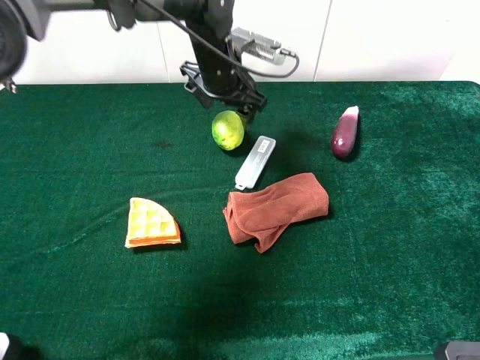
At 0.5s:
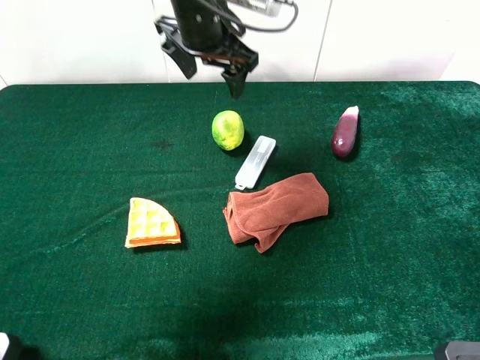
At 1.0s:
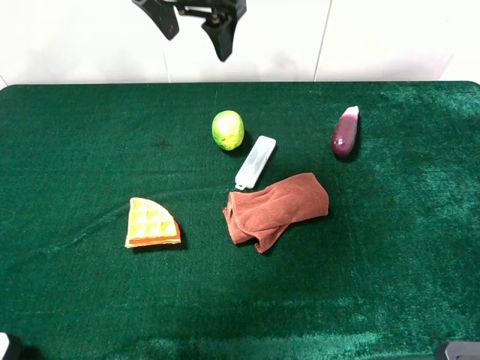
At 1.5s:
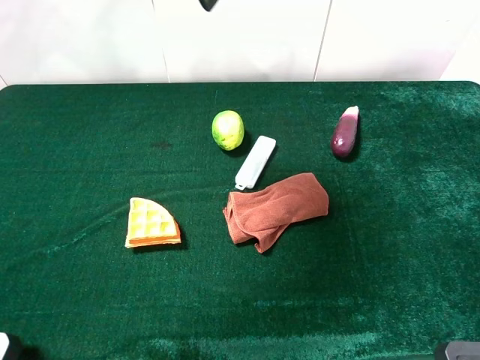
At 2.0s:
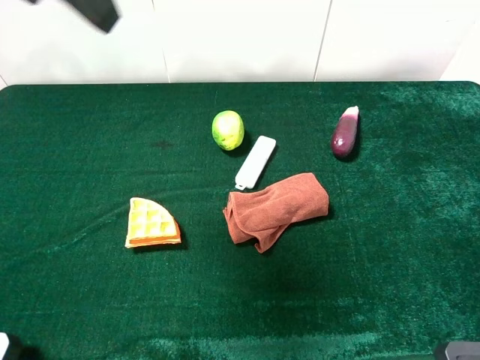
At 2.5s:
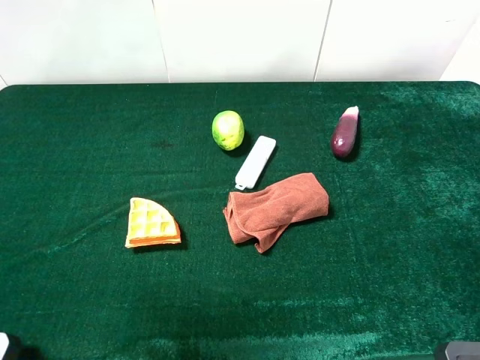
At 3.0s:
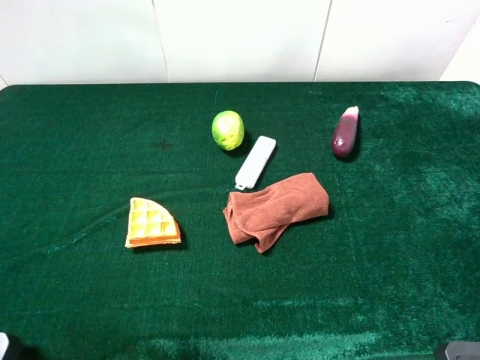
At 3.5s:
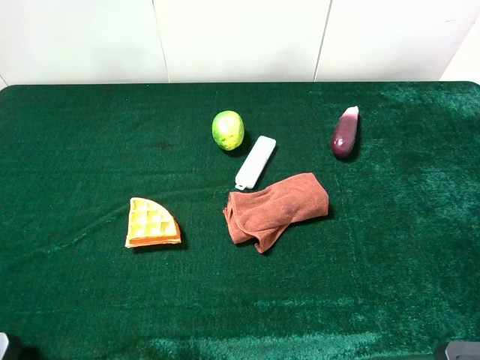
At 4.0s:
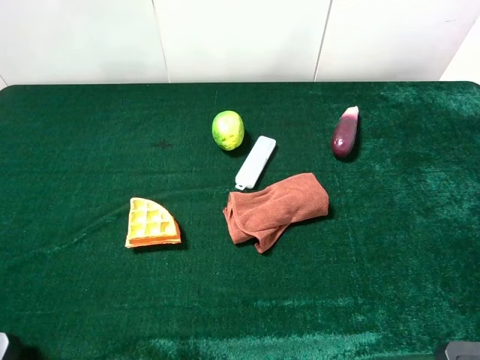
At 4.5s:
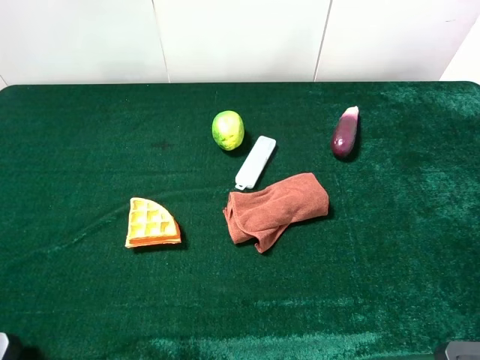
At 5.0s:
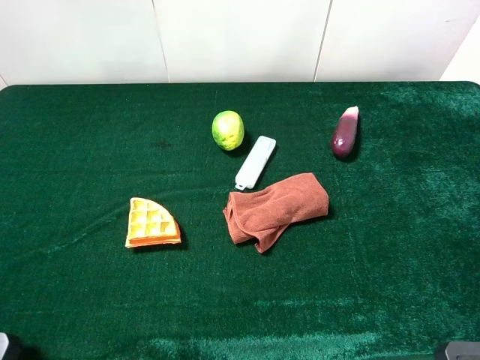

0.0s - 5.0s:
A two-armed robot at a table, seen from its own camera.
Task of the whole recording: the gripper move the object.
0.0s - 2.5s: The left gripper moves backward, upward and to the left, about 40 cm, and opens.
2.5s - 5.0s: The left gripper shifts about 20 cm downward, backward and to the left.

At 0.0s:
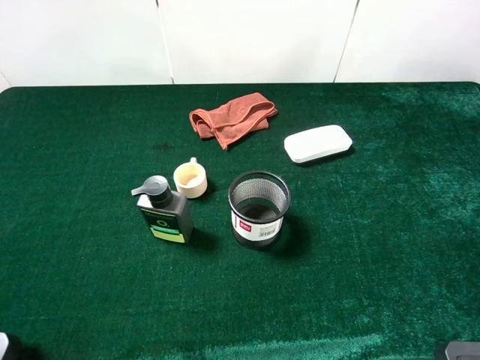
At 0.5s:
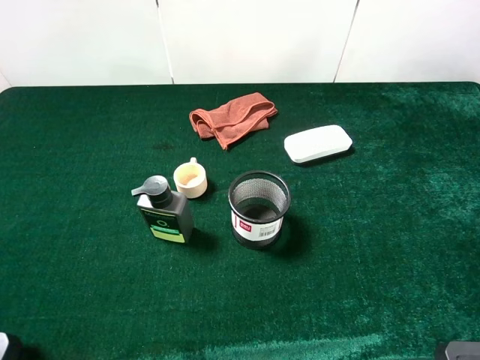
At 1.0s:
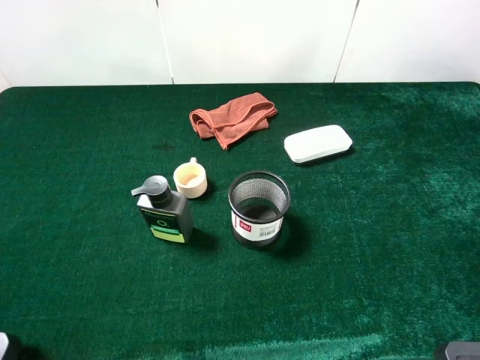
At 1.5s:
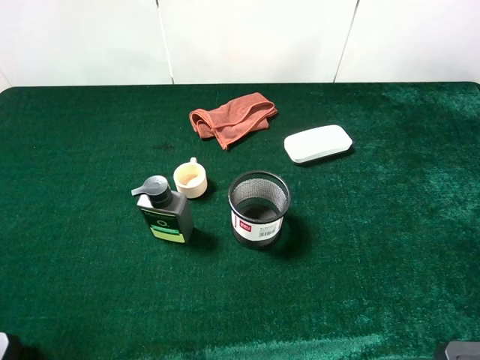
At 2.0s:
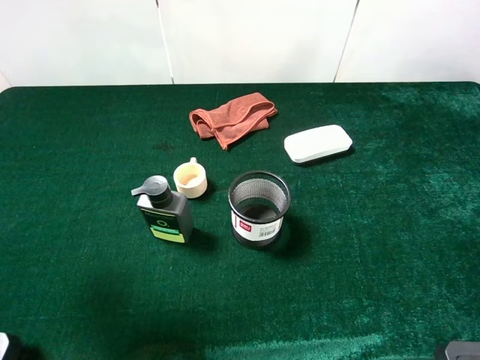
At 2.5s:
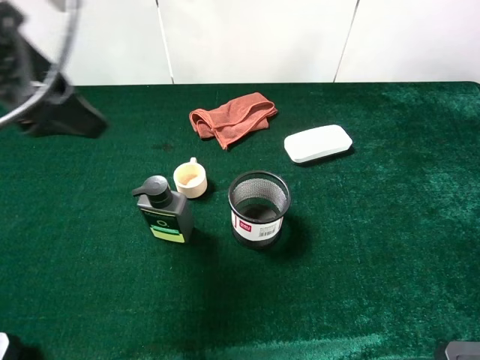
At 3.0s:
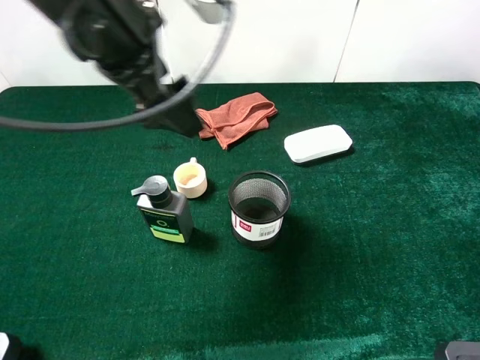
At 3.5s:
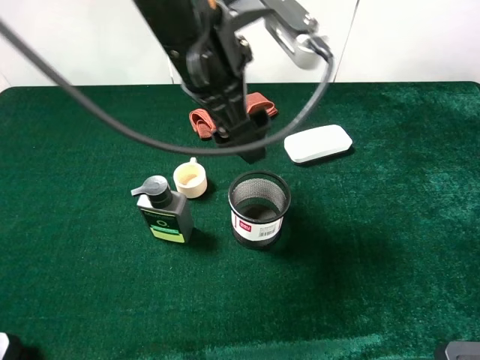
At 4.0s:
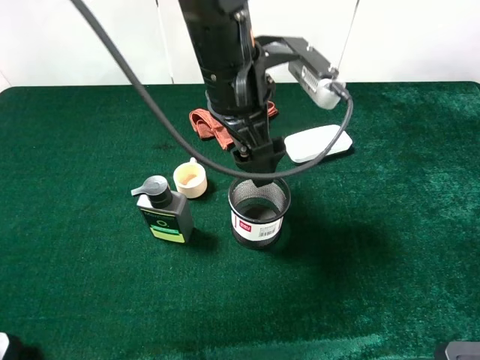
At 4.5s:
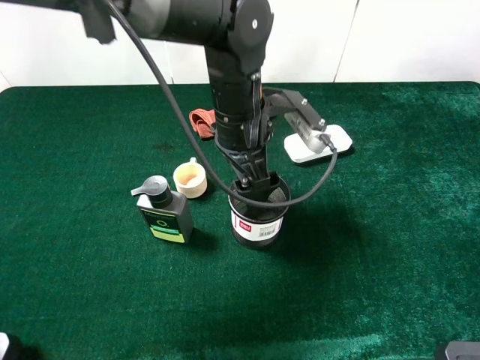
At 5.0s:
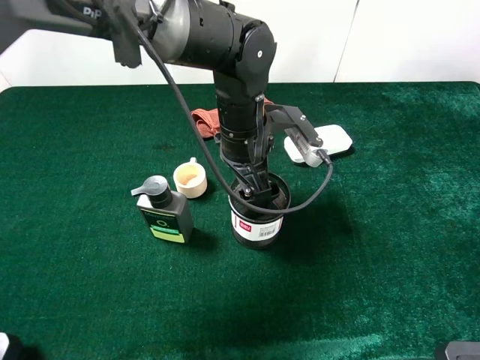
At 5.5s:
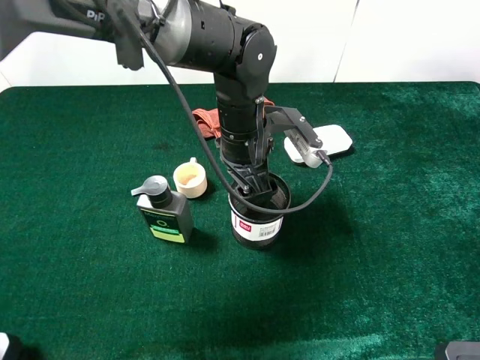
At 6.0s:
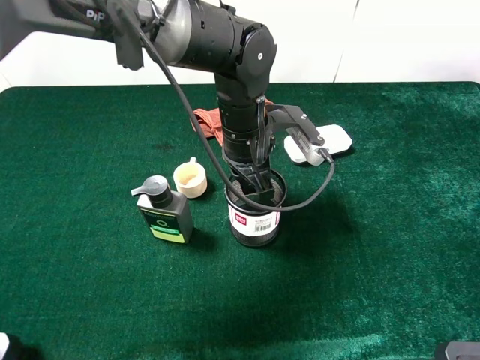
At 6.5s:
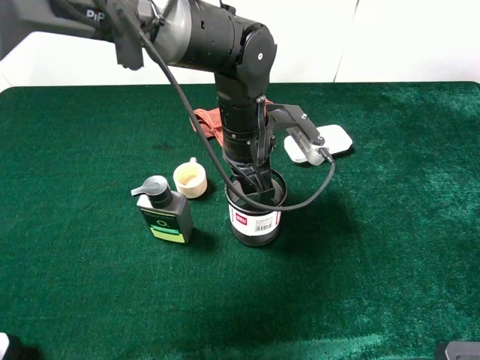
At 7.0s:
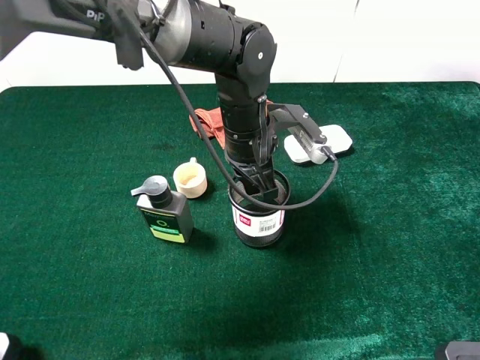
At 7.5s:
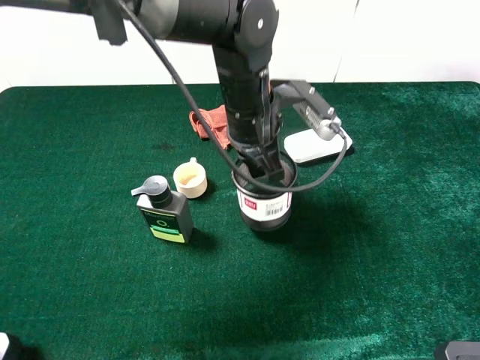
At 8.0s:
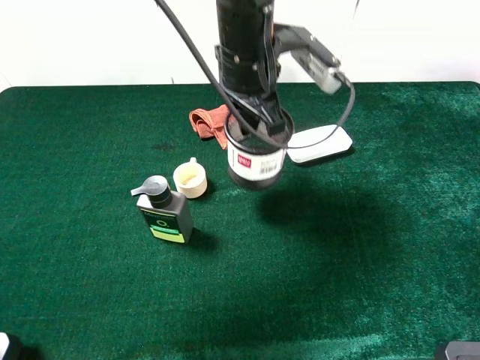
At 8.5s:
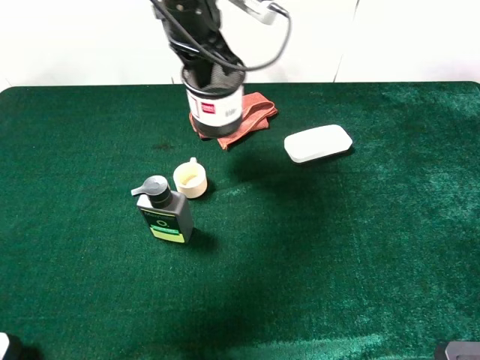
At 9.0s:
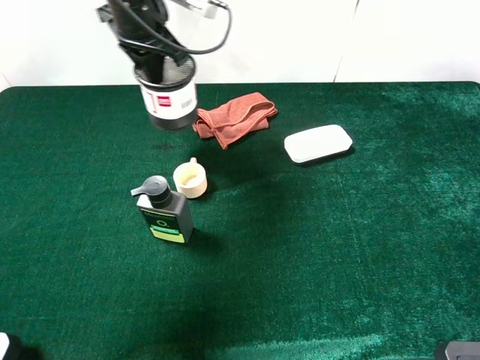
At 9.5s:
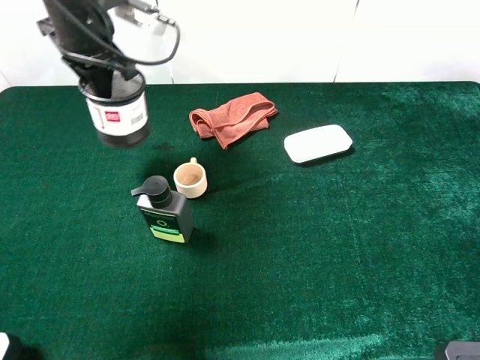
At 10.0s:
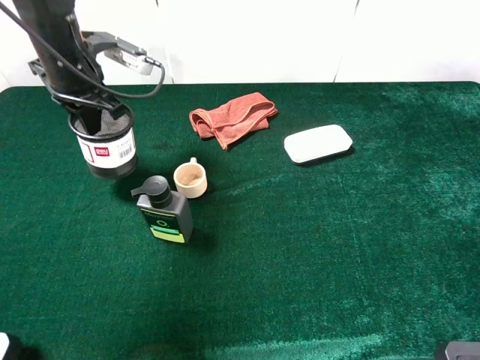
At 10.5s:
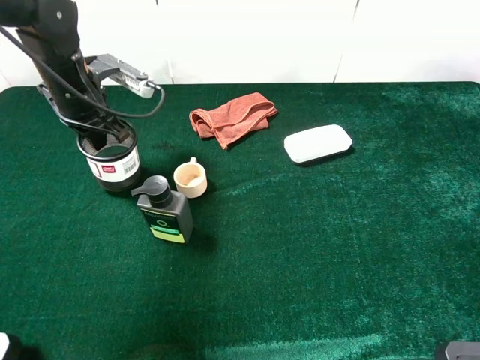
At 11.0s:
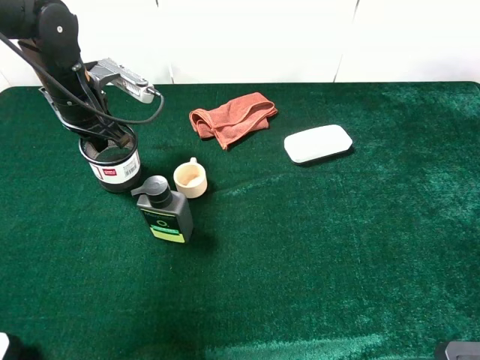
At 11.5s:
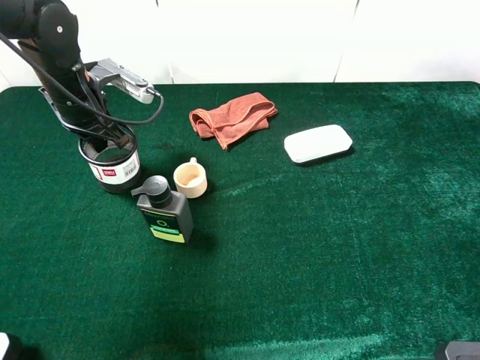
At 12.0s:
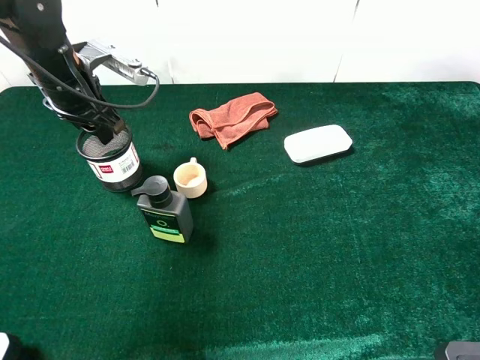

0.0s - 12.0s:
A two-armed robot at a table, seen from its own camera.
Task of the whole recording: the gripper move the object.
Step, 0.0s - 6.5s: Grasp the pen container with the left gripper.
0.0s - 2.0s: The left gripper travels forward by approximately 15 cm.
2.0s - 4.0s: The left gripper heads to the right and forward, covering approximately 35 cm.
4.0s - 6.0s: The left gripper travels downward by approximately 10 cm, and closes.
6.0s - 8.0s: The left gripper heads upward, covering some 10 cm.
8.0s - 10.0s: The left gripper shifts about 25 cm to the left.
10.0s - 12.0s: The left gripper opens.

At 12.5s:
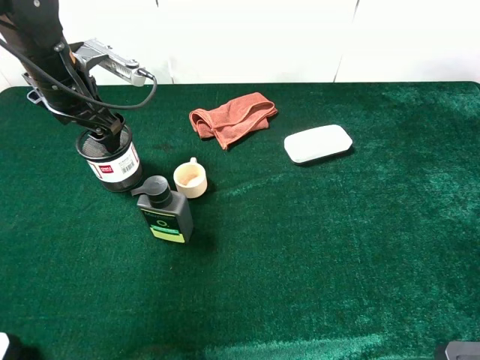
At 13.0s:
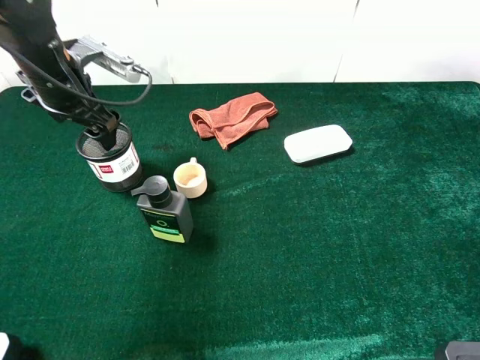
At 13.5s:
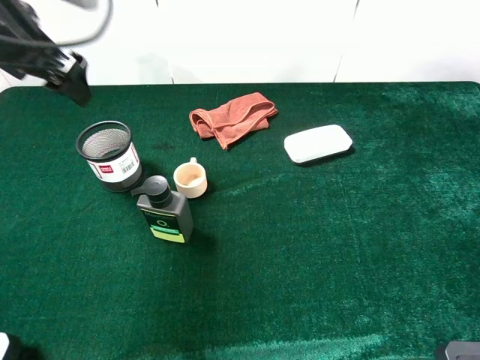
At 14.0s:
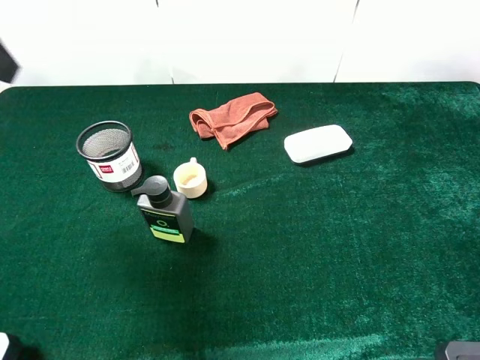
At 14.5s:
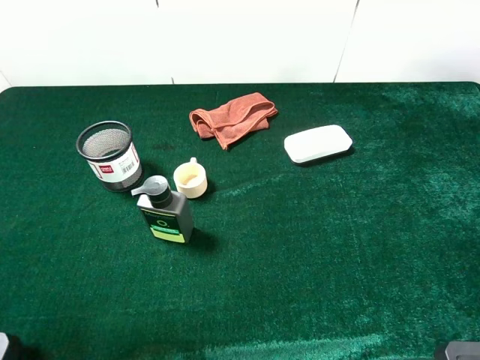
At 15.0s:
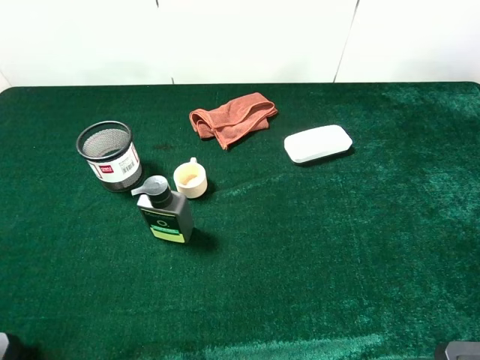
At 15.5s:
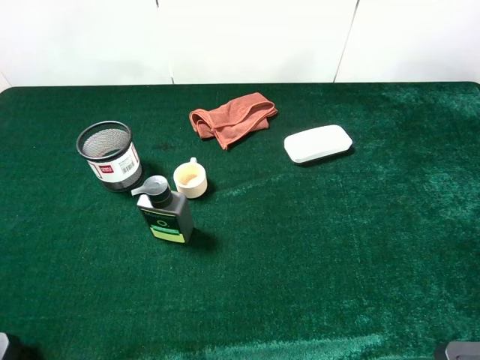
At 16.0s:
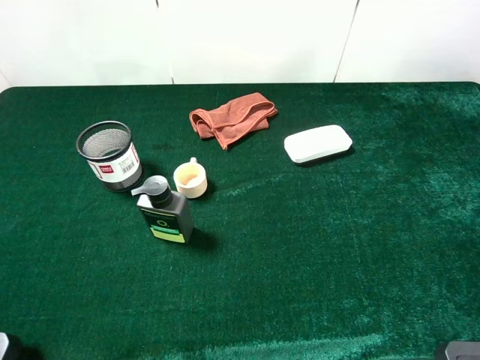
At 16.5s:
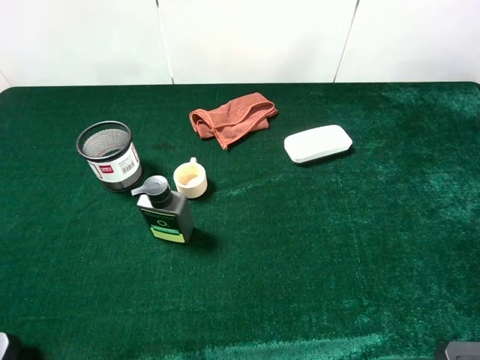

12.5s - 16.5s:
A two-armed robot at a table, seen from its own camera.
Task of the whole recording: the gripper move the object.
12.5s - 14.5s: The left gripper moves backward and upward, some 30 cm.

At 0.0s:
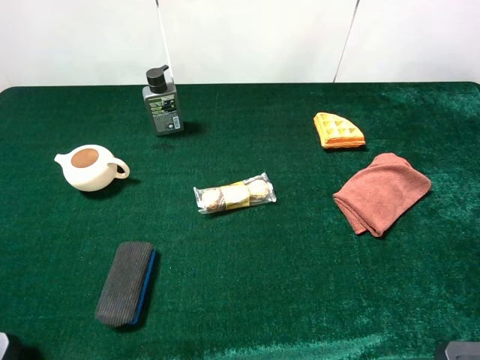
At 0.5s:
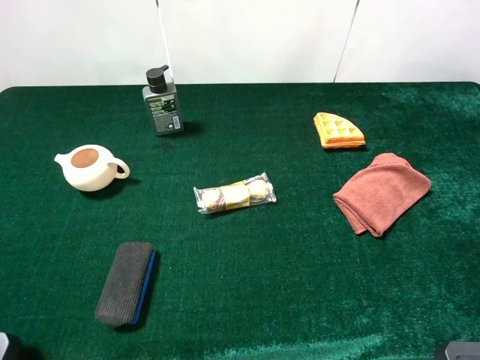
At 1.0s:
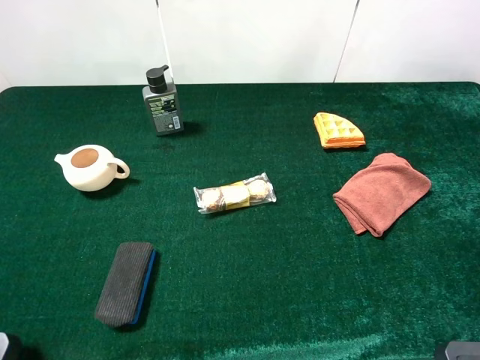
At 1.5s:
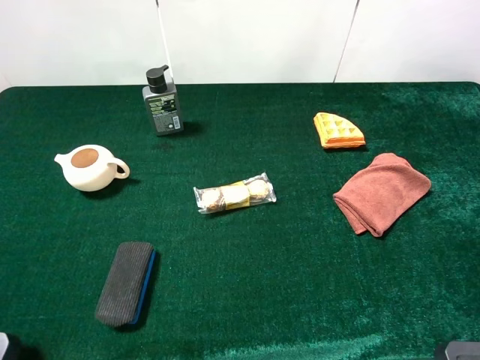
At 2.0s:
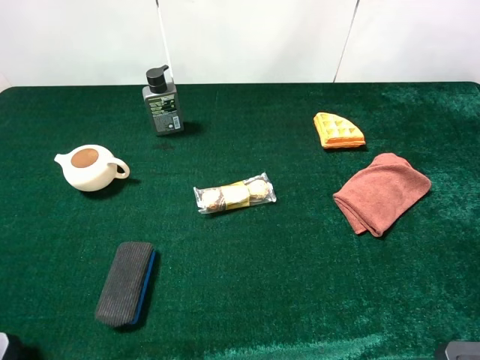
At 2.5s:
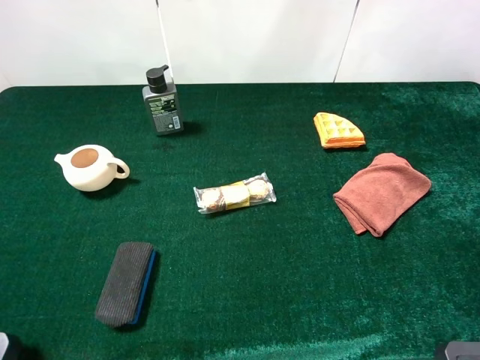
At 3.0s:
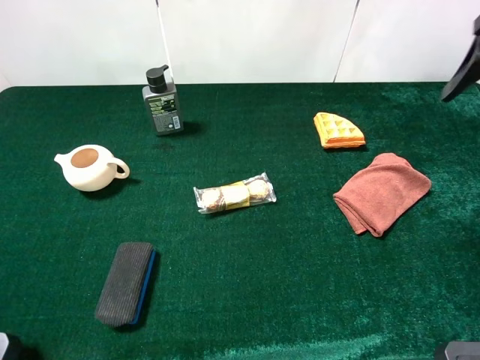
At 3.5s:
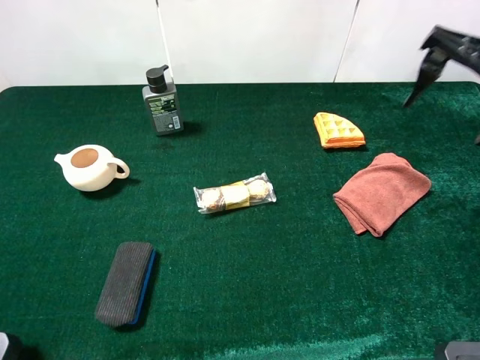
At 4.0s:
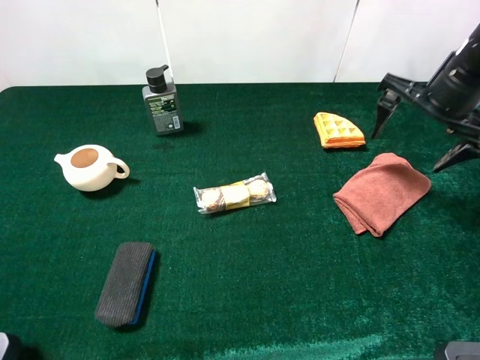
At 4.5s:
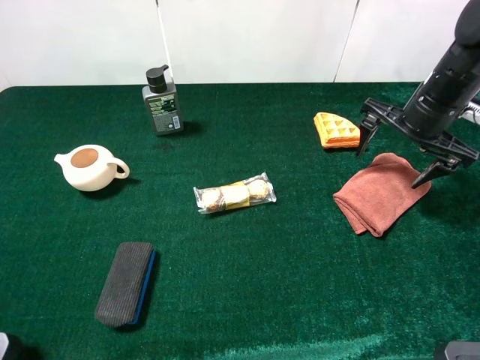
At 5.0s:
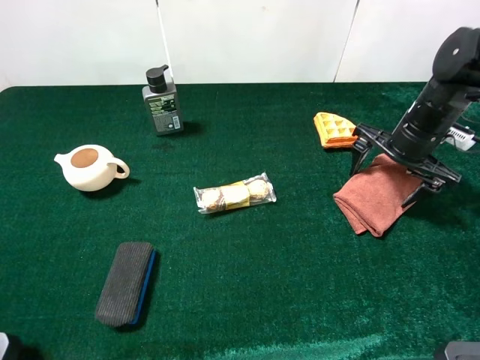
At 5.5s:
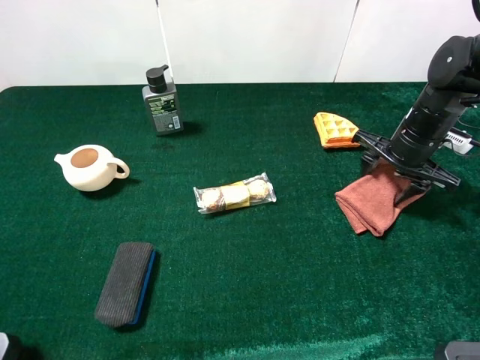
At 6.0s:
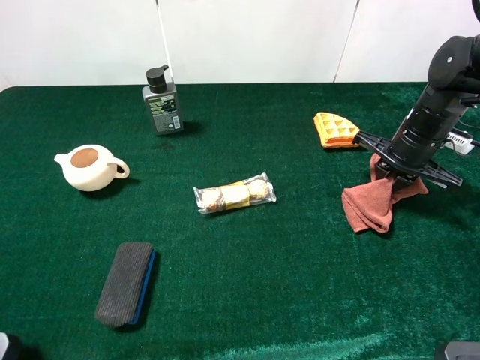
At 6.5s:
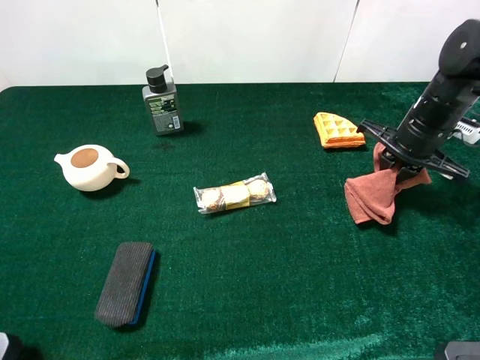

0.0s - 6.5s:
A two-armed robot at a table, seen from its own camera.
Task of the whole recording: the gripper move the object.
Step, 0.0s - 6.0s: Grasp the brown towel with the right gripper.
2.0s - 4.5s: The right gripper moves forward and downward, roughly 30 cm.
4.5s - 6.5s: The right gripper closes.
